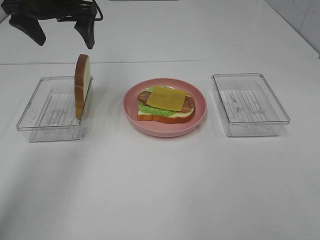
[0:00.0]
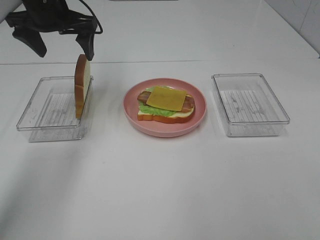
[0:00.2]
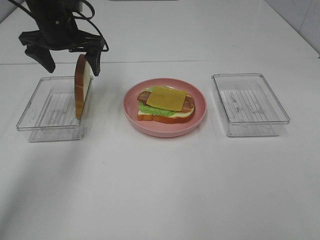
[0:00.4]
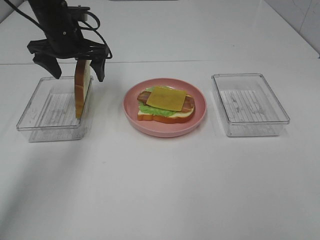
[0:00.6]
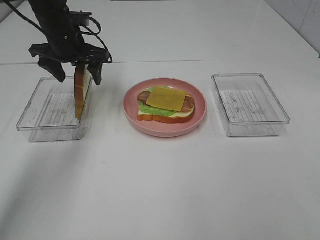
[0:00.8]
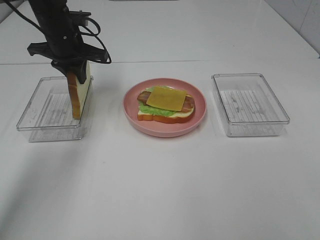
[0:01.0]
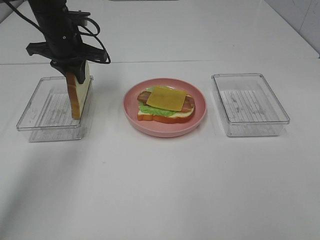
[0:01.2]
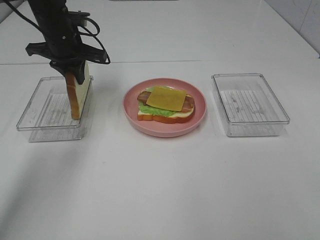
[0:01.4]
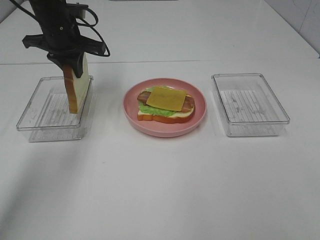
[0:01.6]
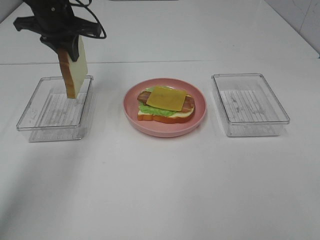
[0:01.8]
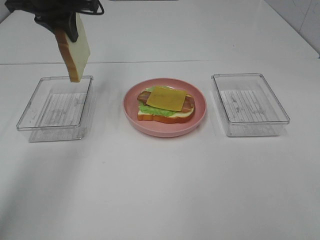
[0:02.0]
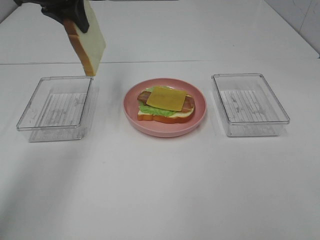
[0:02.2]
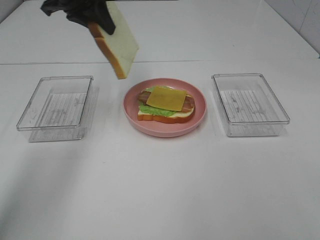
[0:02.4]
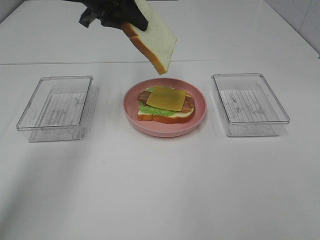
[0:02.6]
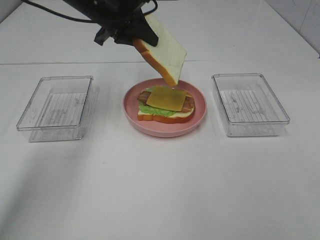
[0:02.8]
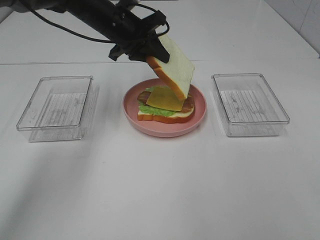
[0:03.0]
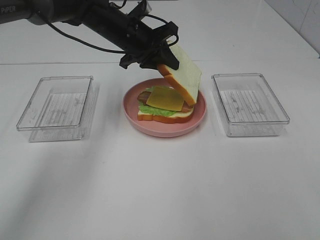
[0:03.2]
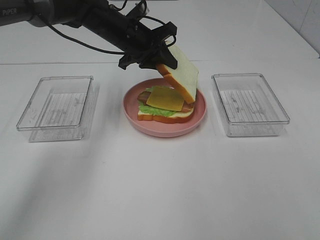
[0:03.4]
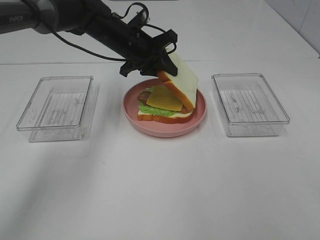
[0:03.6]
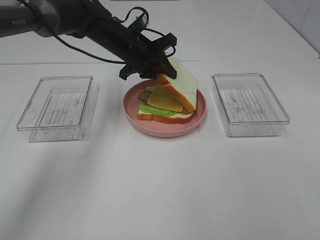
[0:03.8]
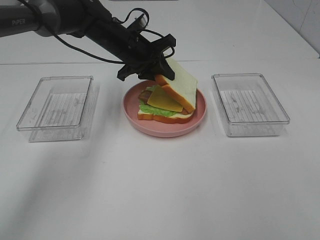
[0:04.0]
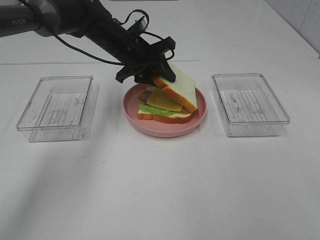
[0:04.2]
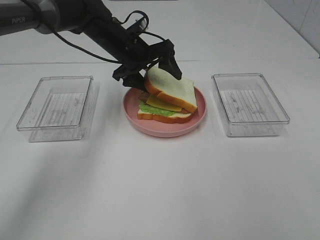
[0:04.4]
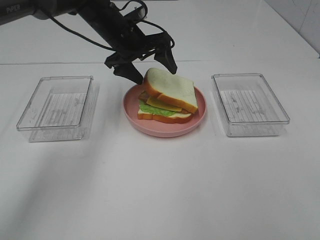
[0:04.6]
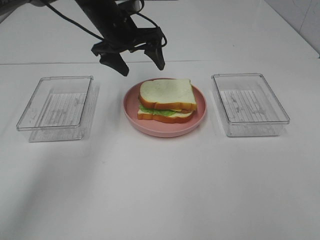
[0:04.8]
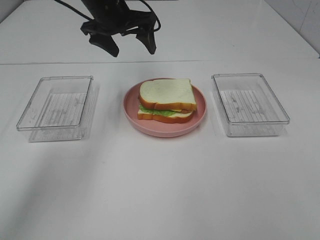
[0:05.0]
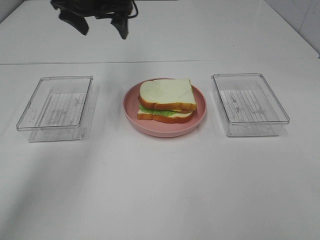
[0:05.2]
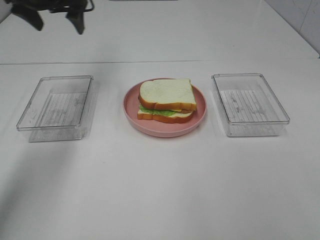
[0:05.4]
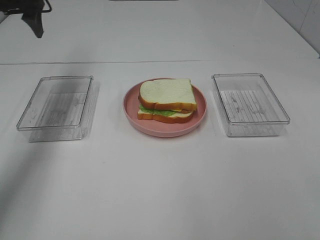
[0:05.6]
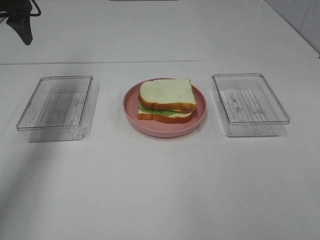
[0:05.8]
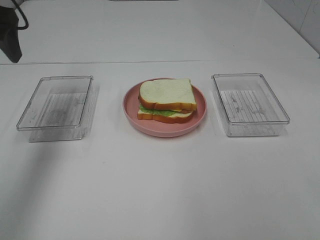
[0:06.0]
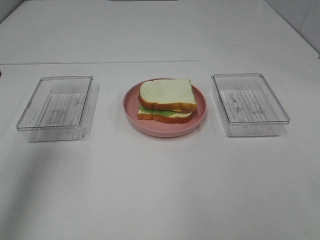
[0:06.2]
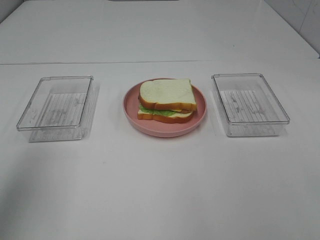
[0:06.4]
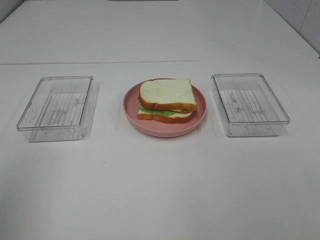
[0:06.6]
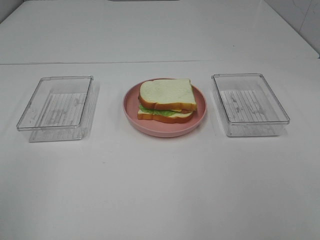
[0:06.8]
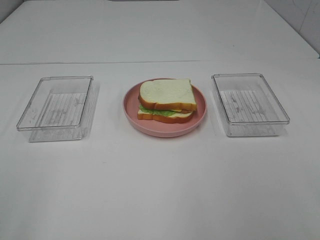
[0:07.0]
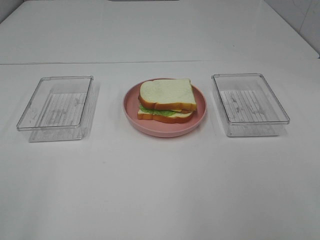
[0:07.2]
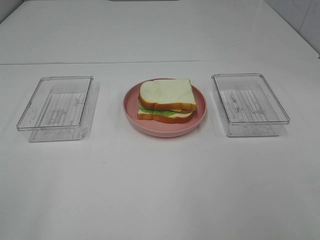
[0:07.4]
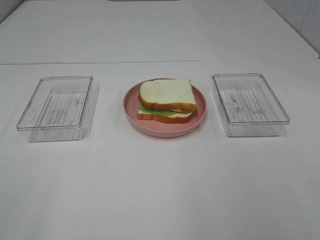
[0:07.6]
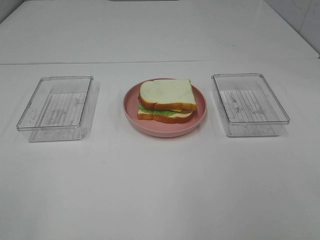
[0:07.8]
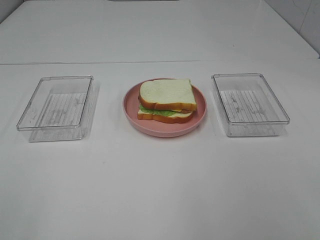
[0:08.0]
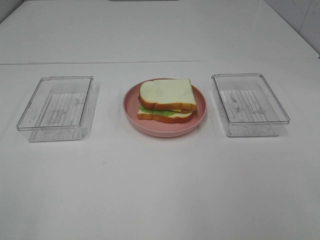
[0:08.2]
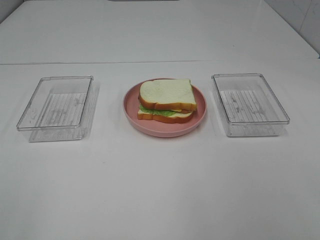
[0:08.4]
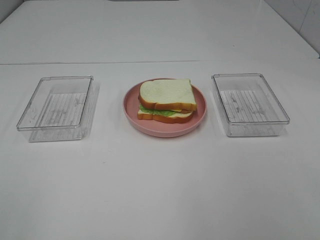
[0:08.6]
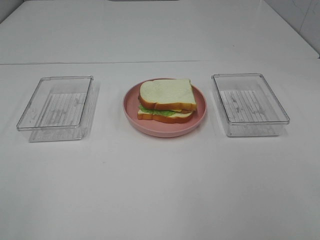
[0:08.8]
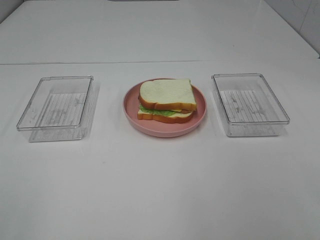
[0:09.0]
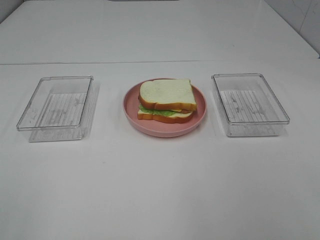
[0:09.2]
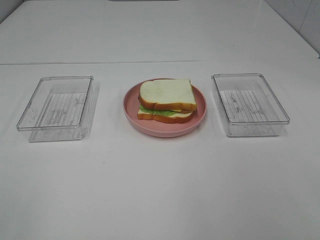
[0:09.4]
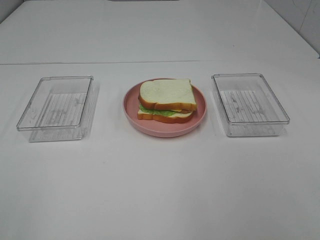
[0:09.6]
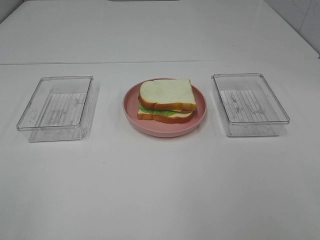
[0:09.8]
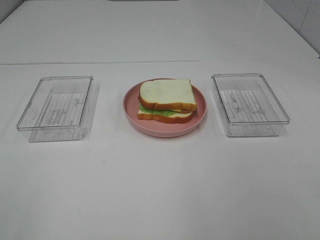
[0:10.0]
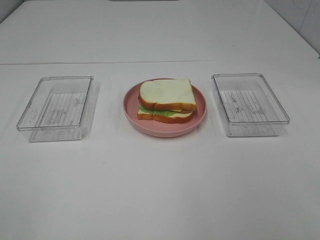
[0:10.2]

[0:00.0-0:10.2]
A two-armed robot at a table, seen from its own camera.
Task of the whole recording: Make sandwiches.
Step, 0:00.0 to 0:01.4: Left hand:grab the bread slice.
Step, 0:01.6 to 0:04.8: Left hand:place the bread slice on the cheese slice.
0:00.0 to 0:01.4: The left gripper travels downward by some 10 cm, and closes its fingers.
0:01.4 to 0:03.0: The left gripper travels to the right by approximately 10 cm, and travels upward and back again, approximately 10 cm each way.
0:03.0 to 0:04.4: The left gripper opens up.
0:04.4 to 0:05.8: The left gripper shifts about 25 cm to the left and upward.
0:05.8 to 0:07.2: The left gripper travels backward by some 40 cm.
0:08.8 to 0:10.2: Neither gripper changes place.
